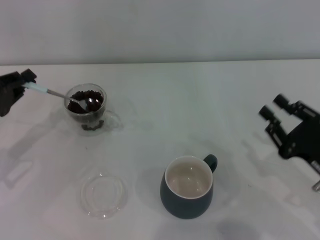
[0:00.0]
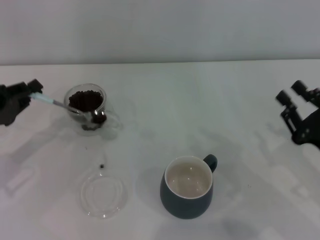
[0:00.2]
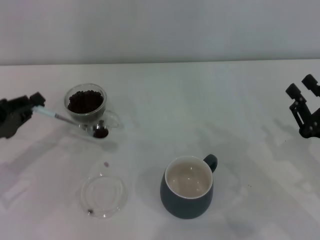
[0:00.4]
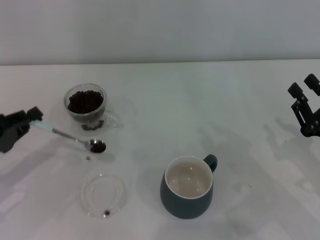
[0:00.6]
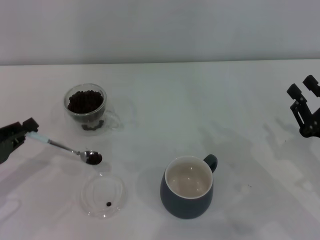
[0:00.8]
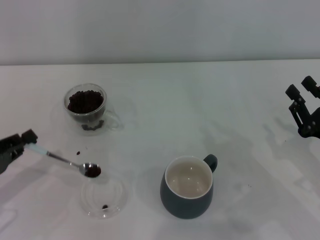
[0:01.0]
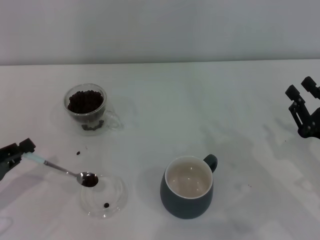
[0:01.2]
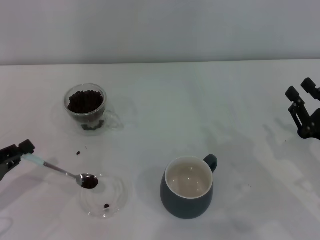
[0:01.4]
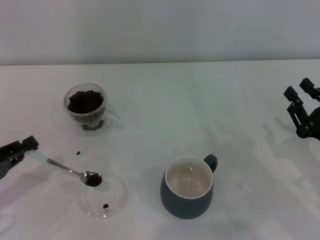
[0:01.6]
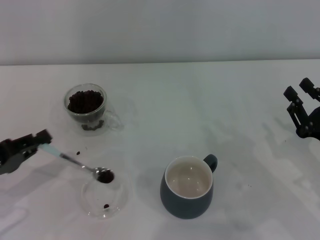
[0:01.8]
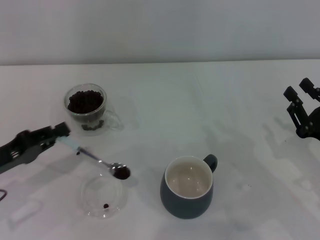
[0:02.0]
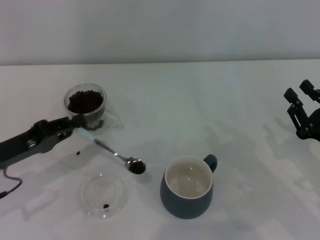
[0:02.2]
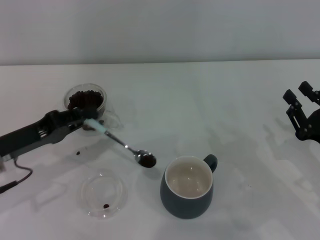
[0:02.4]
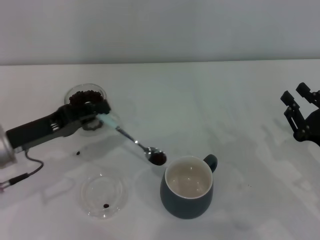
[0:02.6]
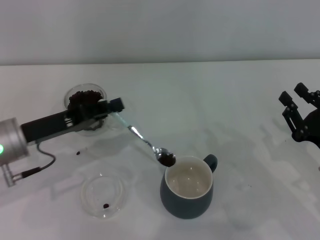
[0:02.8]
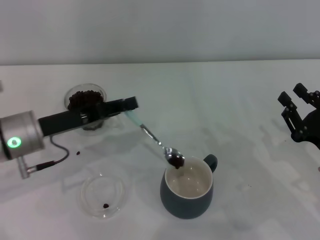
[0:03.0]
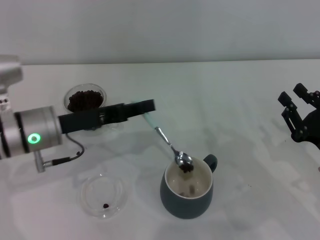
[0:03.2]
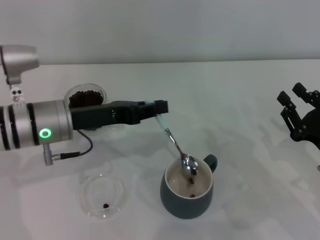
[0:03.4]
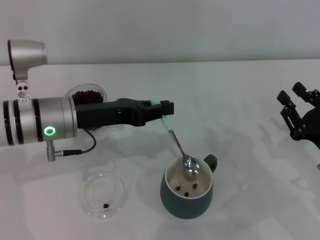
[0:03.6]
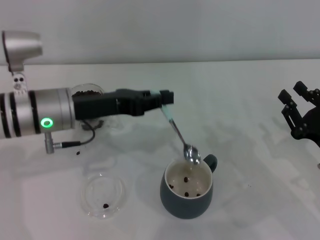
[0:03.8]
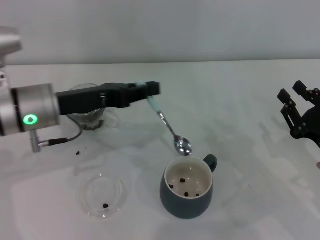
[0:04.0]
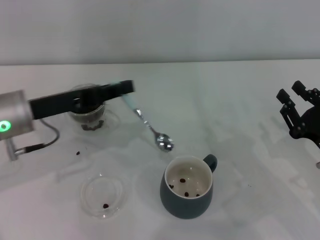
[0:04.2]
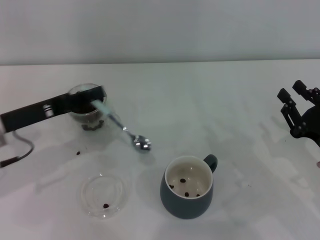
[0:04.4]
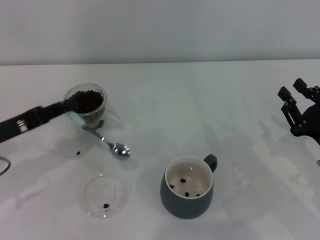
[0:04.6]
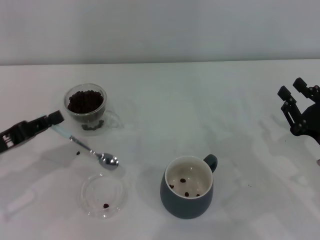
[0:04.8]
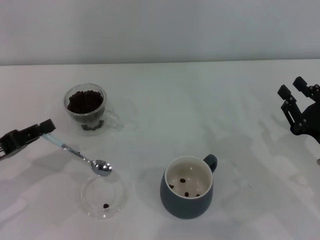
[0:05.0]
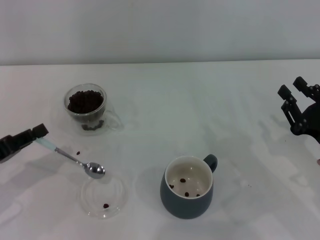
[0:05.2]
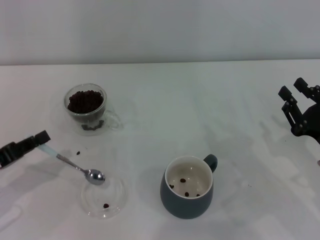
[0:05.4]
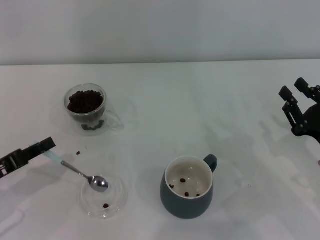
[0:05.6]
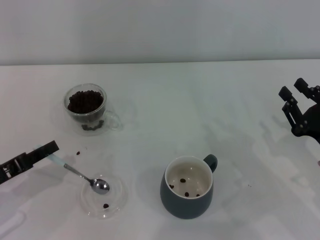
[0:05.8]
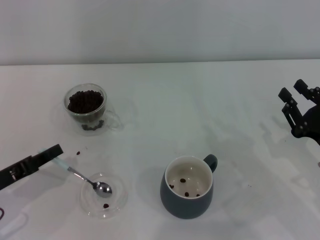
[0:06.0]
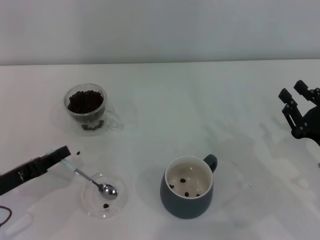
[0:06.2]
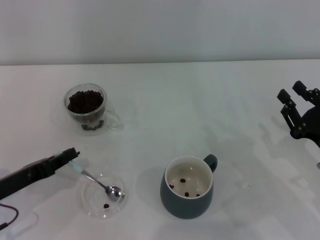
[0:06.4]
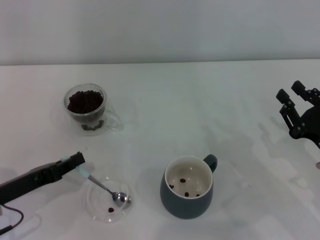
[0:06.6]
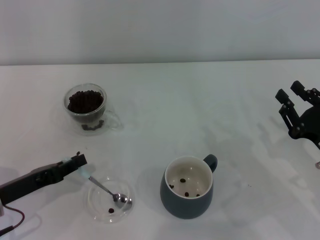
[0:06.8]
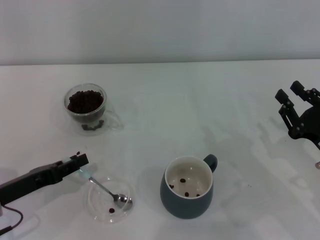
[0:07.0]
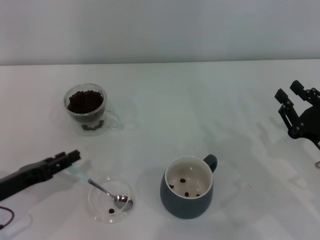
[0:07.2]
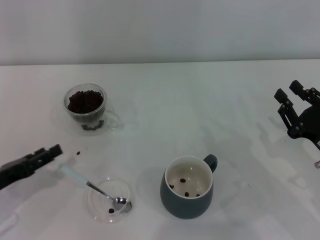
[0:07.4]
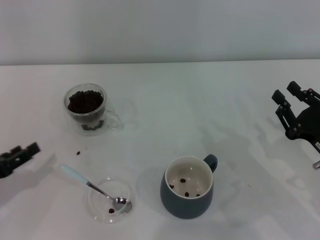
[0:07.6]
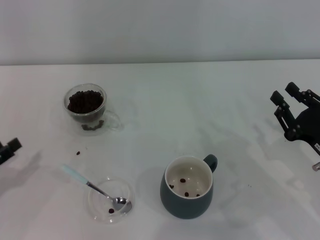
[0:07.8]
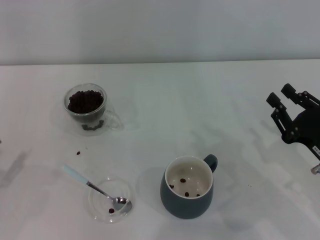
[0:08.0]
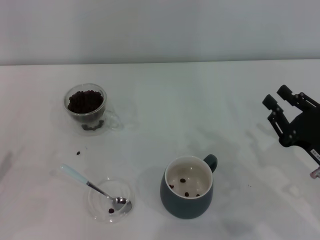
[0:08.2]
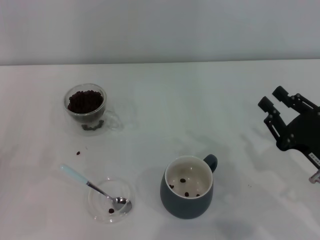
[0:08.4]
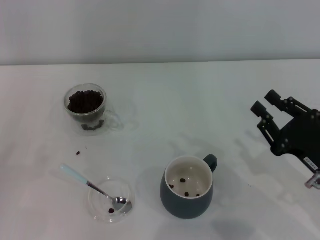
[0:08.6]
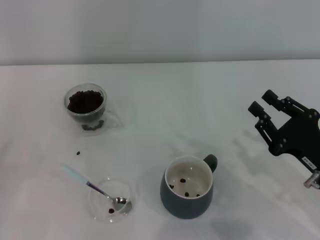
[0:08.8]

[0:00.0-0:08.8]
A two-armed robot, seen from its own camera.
Task of the whole recording: Use a blue spoon to take out the coffee beans from the glass and pour them into the gray cup.
0:00.0 to 0:01.4: The left gripper moves backward, about 10 cm.
0:01.4 to 0:03.0: The left gripper shifts roughly 15 cm to the right and forward.
0:04.4 to 0:05.8: The left gripper travels backward, downward and to the left by about 10 cm.
0:05.8 to 0:07.4: The left gripper opens.
0:07.4 to 0:08.8: The left gripper heads to the left, covering approximately 10 cm.
